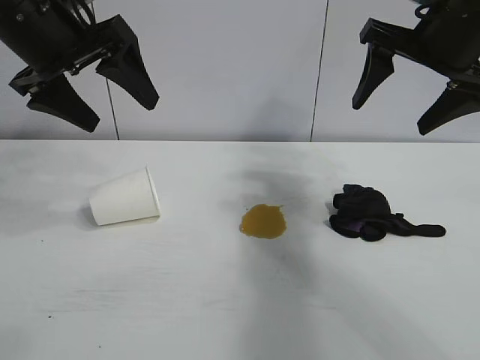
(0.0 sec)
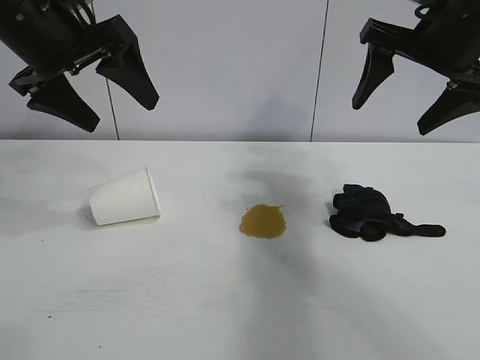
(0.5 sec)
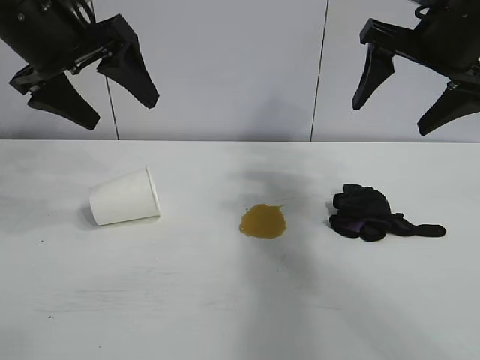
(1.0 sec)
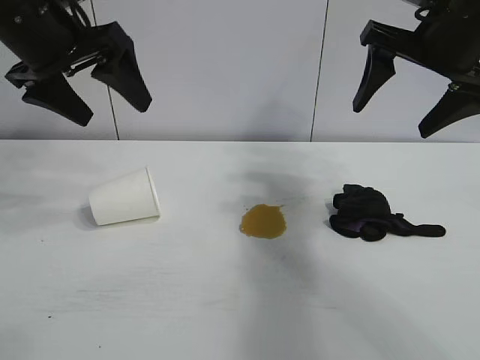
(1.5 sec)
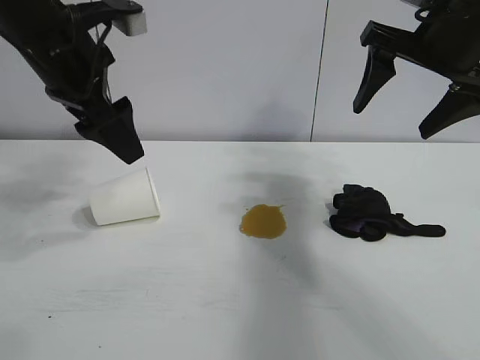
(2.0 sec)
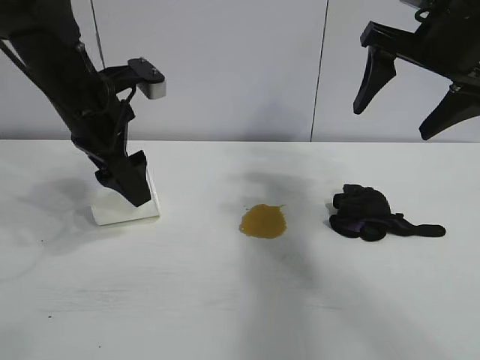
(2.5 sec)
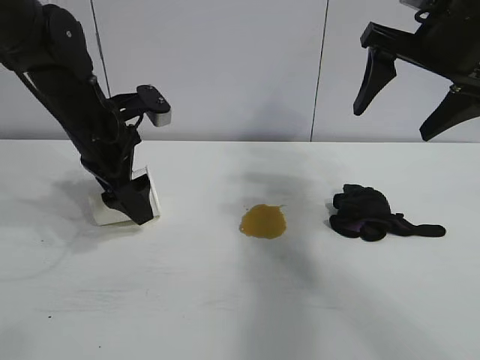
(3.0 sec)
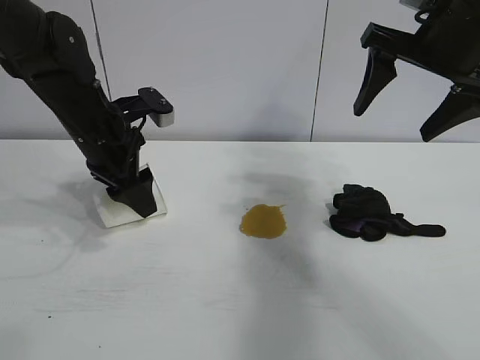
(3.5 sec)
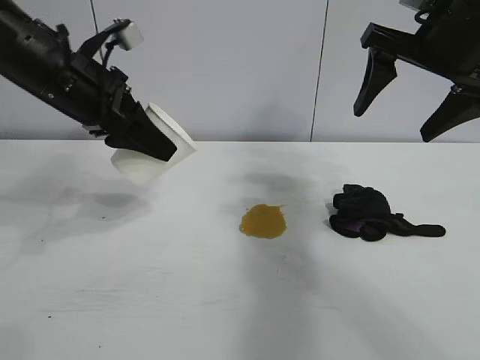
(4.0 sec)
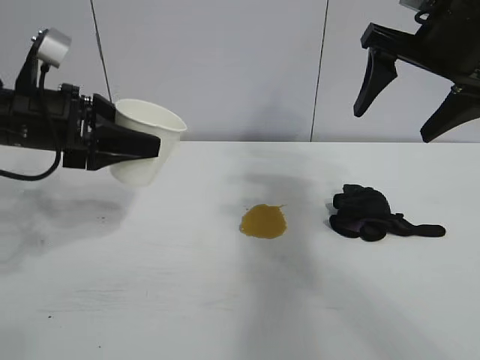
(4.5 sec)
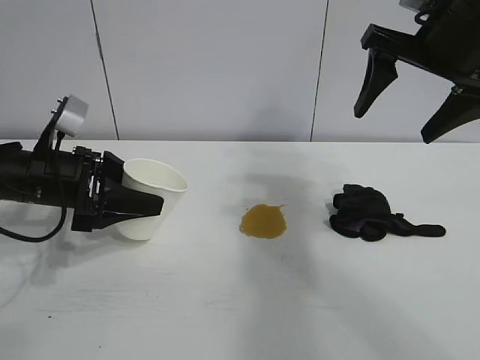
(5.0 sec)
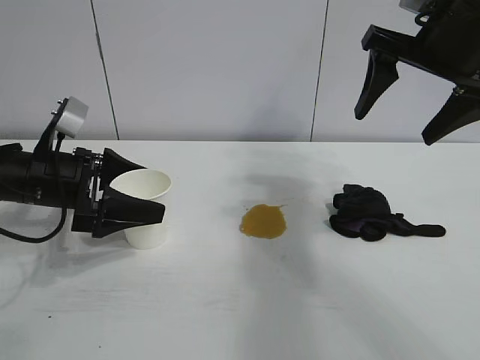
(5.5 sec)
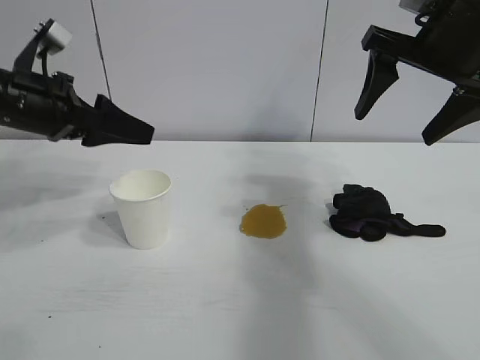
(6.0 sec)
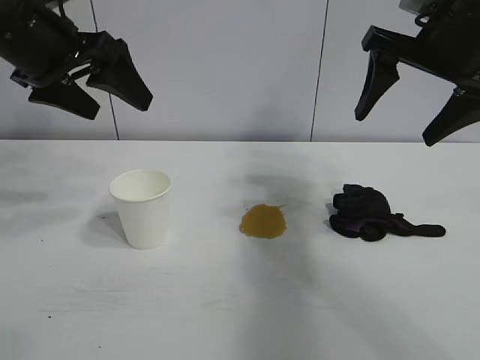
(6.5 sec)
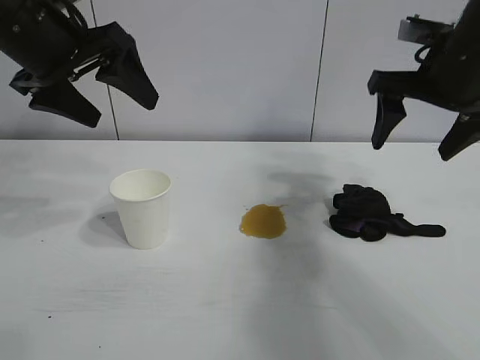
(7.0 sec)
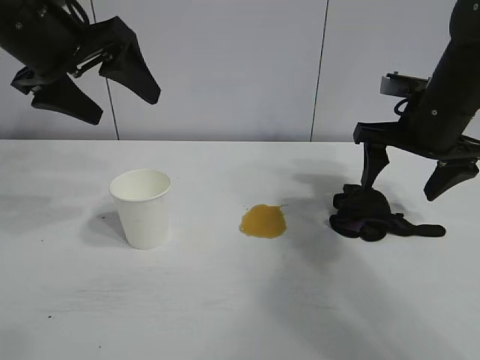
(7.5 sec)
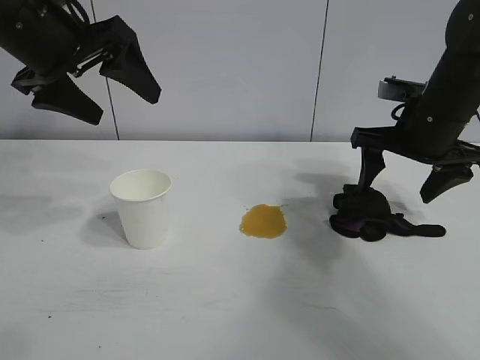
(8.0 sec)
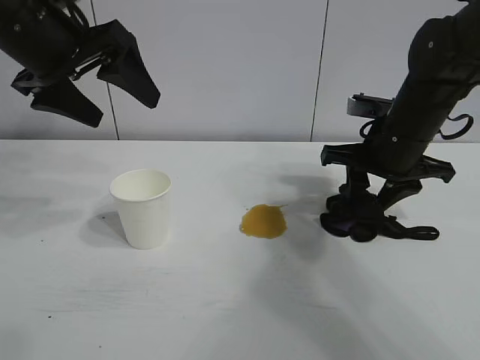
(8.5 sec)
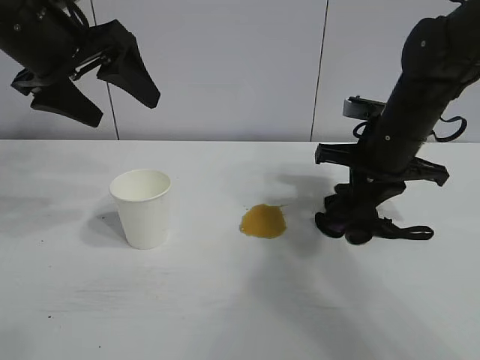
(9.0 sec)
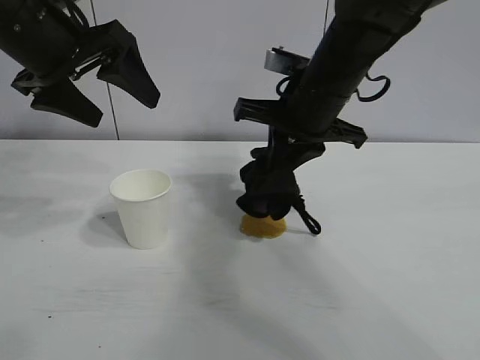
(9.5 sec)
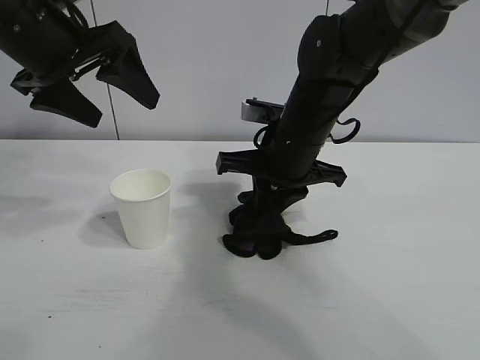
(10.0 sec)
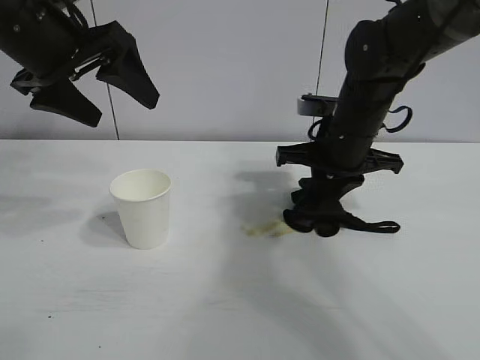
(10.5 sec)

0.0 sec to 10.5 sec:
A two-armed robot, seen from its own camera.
Task of the whole recording: the left gripper pick up the fallen cup and place it upright, the right gripper grasp the black rag and wipe the stain on the table, the right gripper put the black rag back in its original position.
Step, 1.5 sec to 3.0 sec: Grasp the paper cup with left gripper.
Step, 3.5 sec to 5.0 sec: Stand the paper cup upright with left gripper.
Step, 5.5 sec to 9.0 sec: Grasp the rag with right gripper.

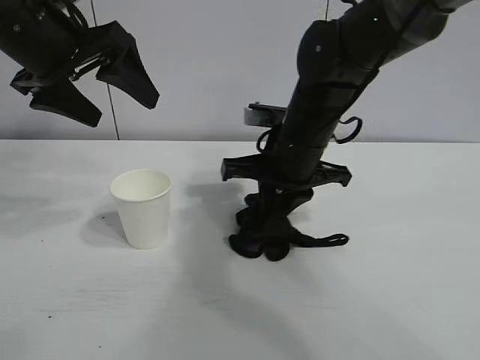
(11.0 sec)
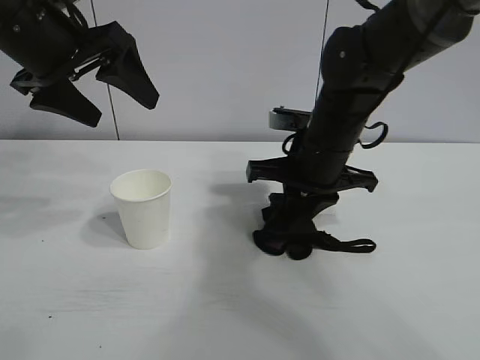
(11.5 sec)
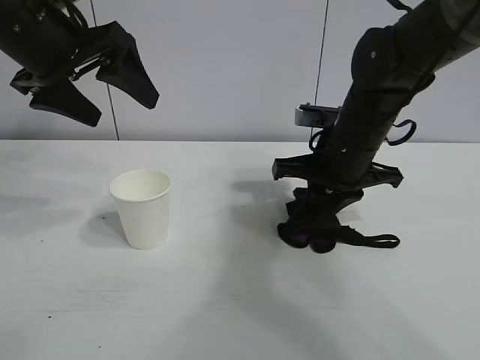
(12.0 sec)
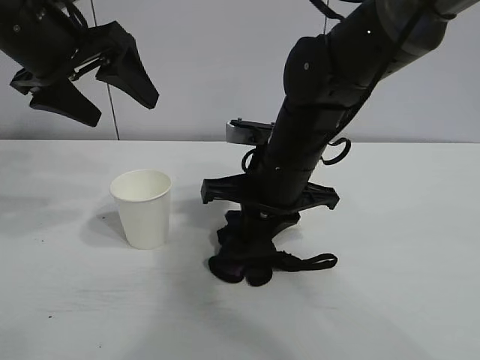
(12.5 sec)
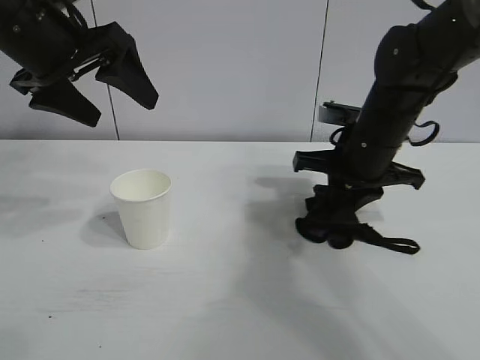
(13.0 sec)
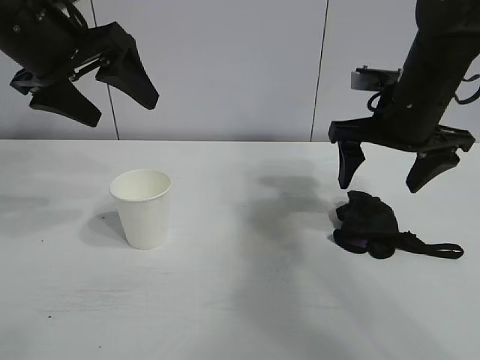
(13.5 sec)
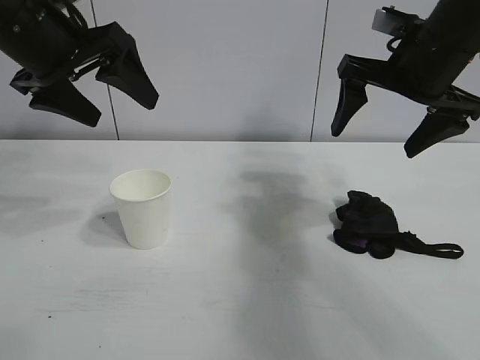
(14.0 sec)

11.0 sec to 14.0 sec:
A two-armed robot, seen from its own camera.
Task of the whole recording: the left gripper pick up the fallen cup and place it upright, the right gripper grasp the black rag and wipe the stain on the table, the right gripper put the black rag back in its original position.
Step, 11.0 sec to 13.0 sec: Wipe the stains off the table with the rag with right gripper.
